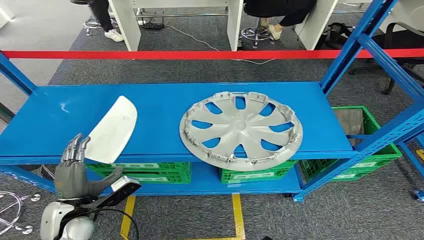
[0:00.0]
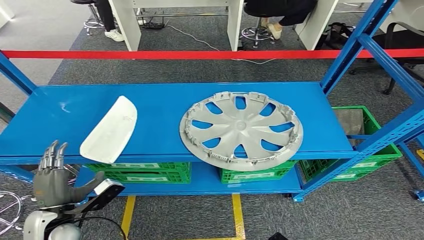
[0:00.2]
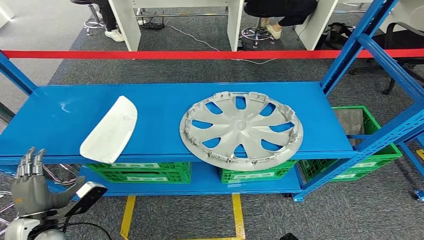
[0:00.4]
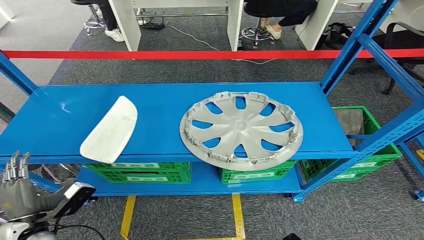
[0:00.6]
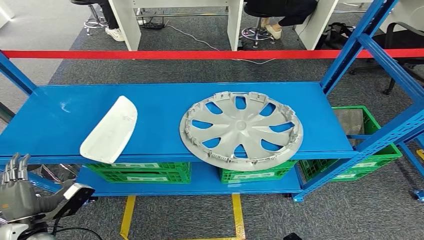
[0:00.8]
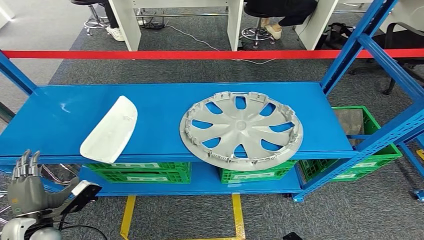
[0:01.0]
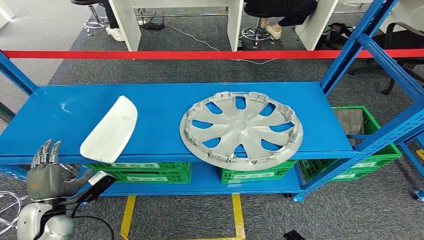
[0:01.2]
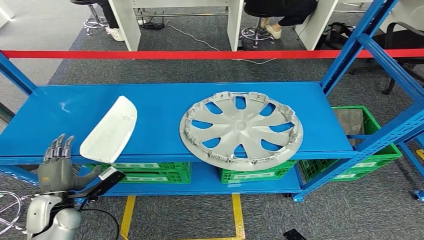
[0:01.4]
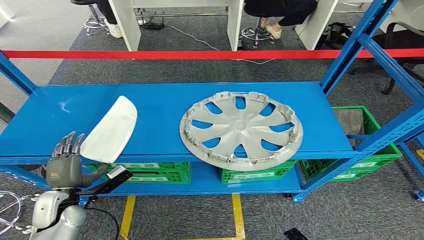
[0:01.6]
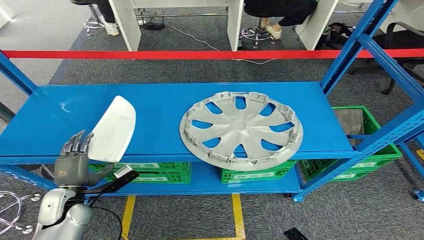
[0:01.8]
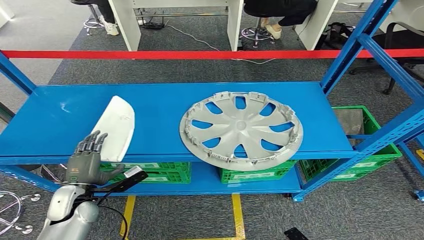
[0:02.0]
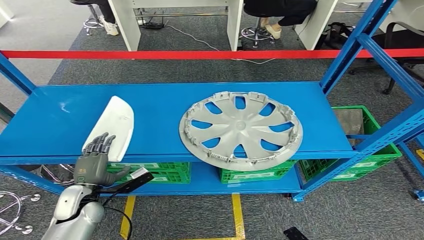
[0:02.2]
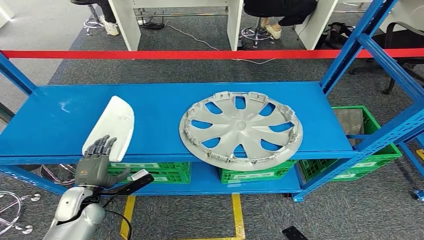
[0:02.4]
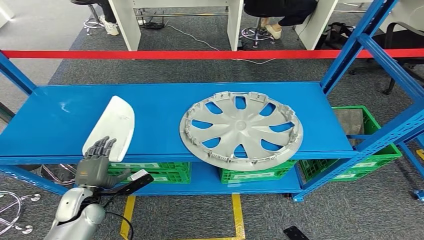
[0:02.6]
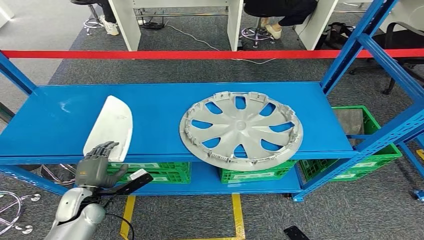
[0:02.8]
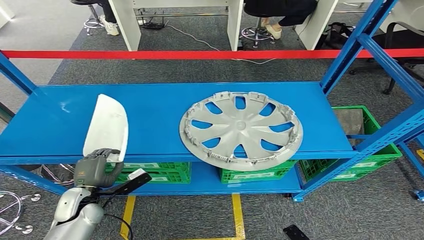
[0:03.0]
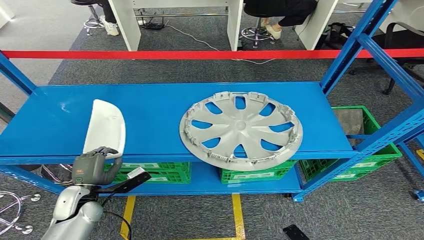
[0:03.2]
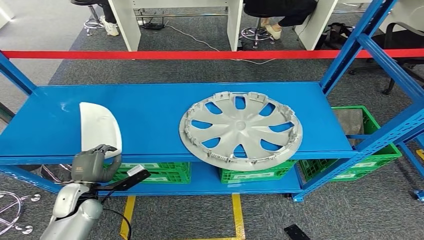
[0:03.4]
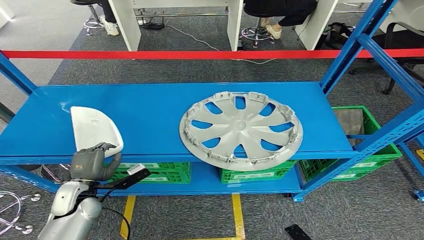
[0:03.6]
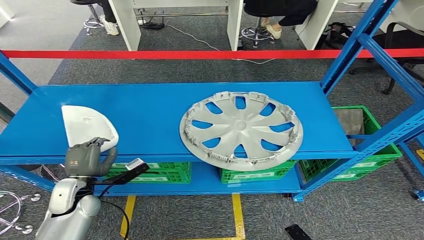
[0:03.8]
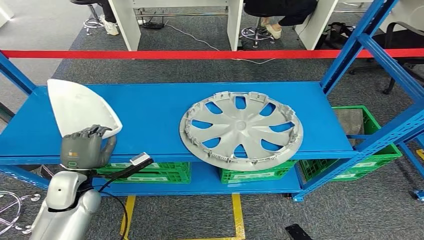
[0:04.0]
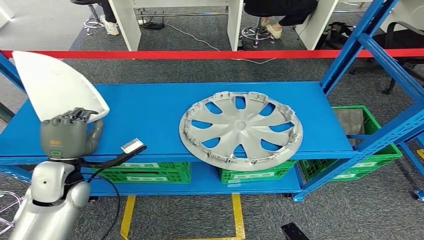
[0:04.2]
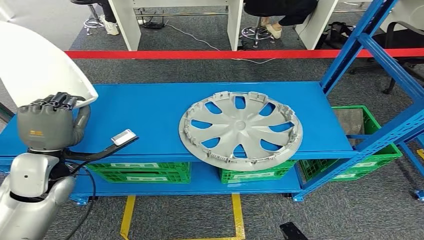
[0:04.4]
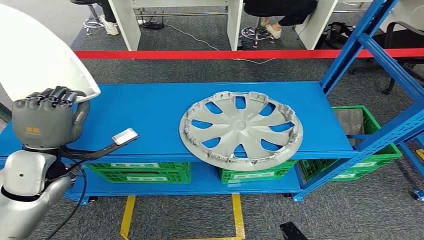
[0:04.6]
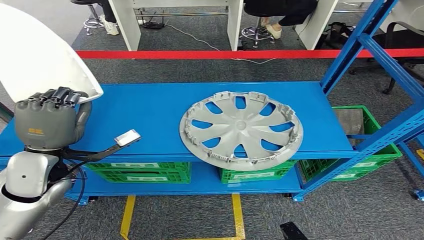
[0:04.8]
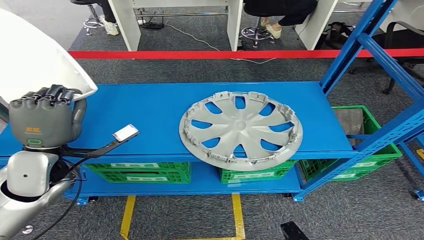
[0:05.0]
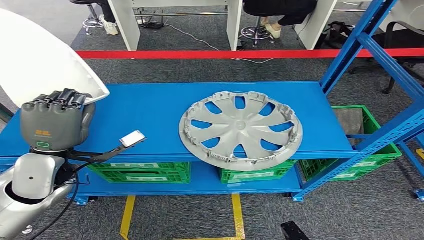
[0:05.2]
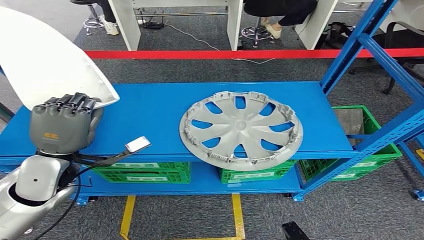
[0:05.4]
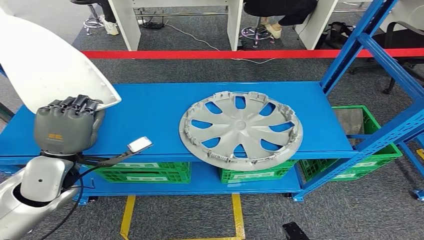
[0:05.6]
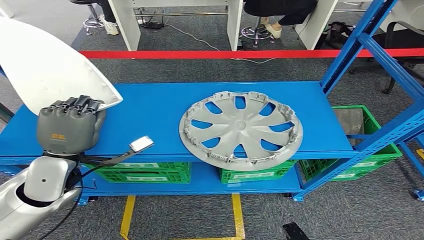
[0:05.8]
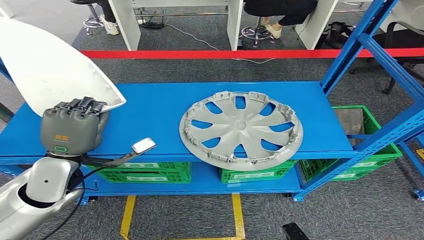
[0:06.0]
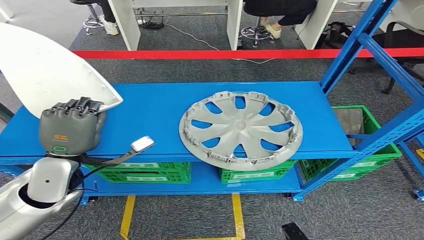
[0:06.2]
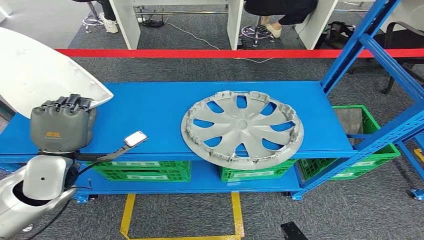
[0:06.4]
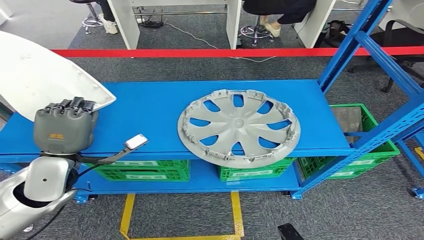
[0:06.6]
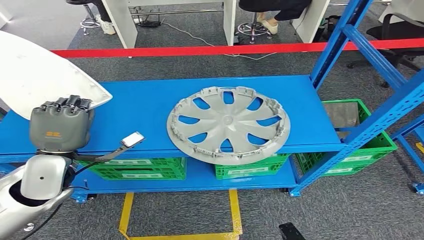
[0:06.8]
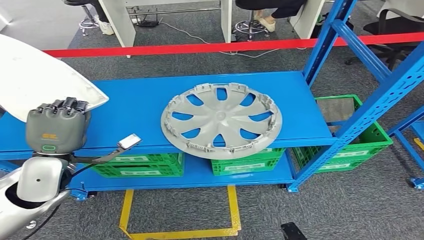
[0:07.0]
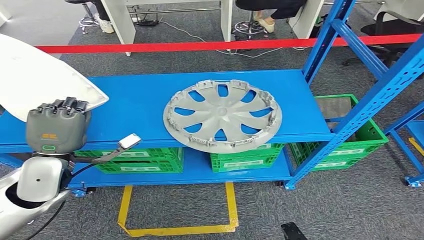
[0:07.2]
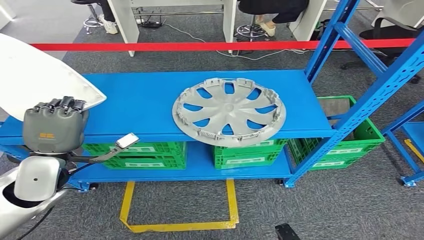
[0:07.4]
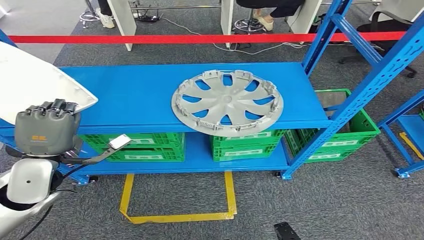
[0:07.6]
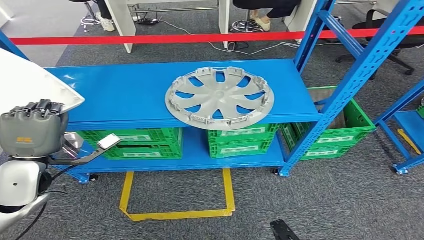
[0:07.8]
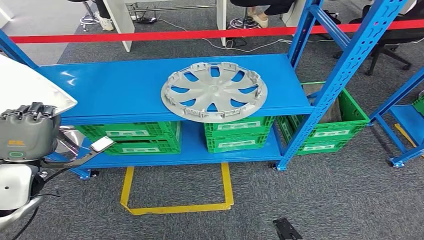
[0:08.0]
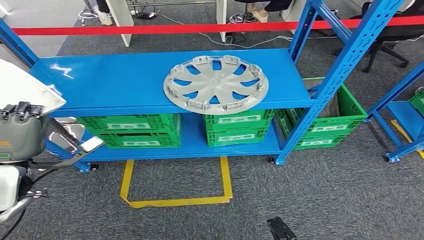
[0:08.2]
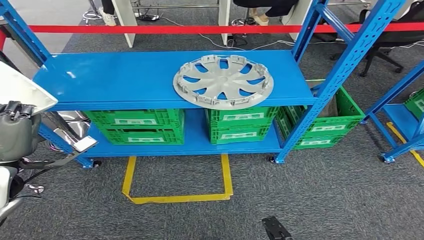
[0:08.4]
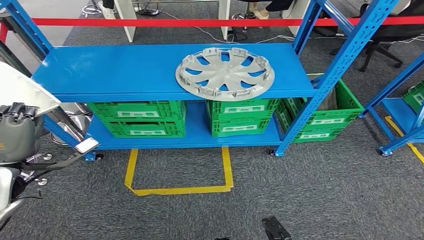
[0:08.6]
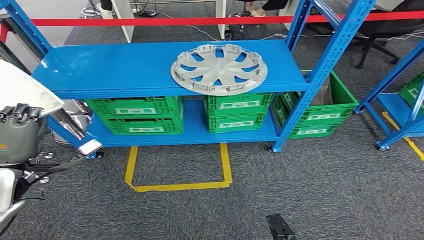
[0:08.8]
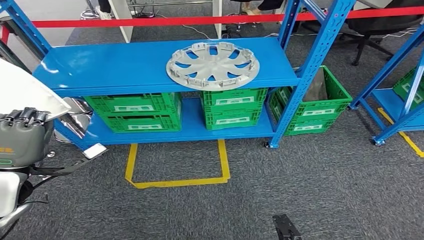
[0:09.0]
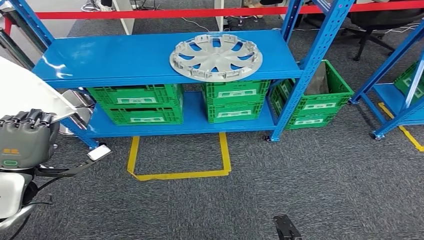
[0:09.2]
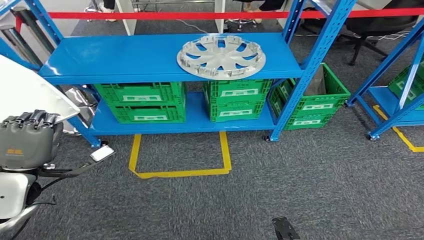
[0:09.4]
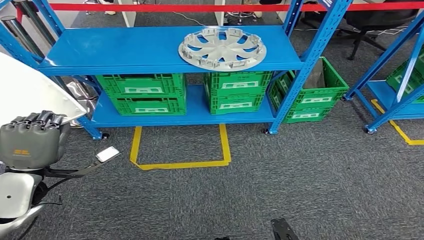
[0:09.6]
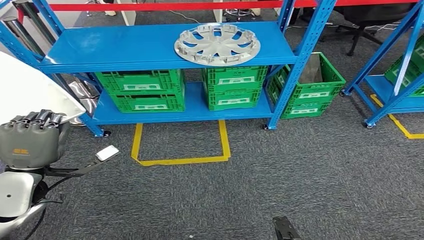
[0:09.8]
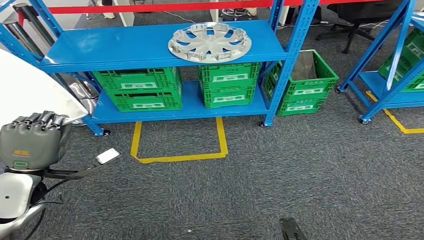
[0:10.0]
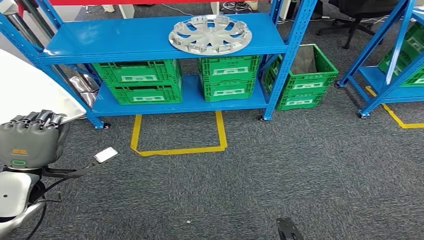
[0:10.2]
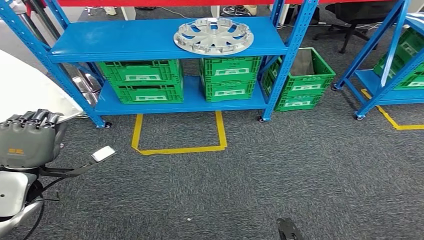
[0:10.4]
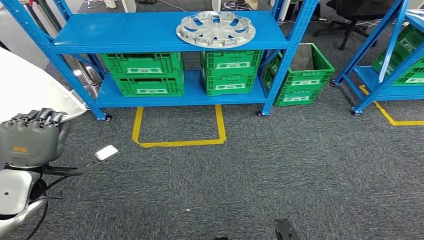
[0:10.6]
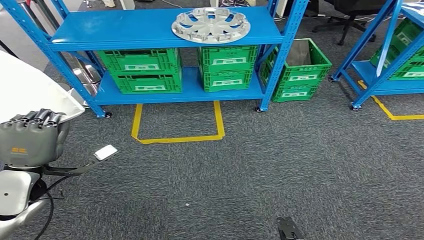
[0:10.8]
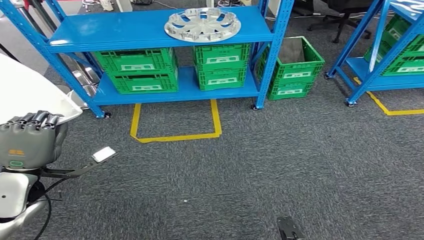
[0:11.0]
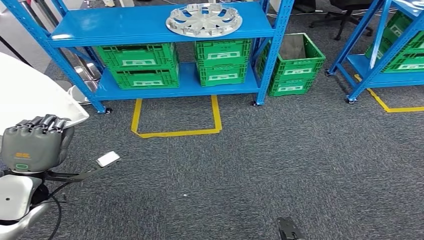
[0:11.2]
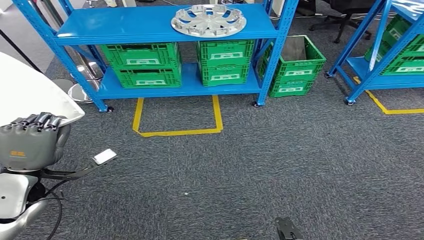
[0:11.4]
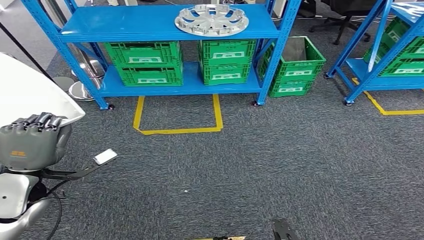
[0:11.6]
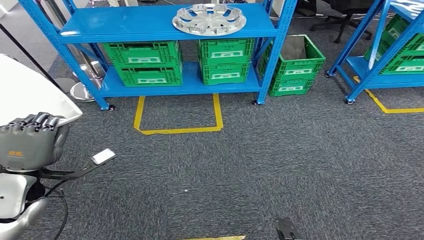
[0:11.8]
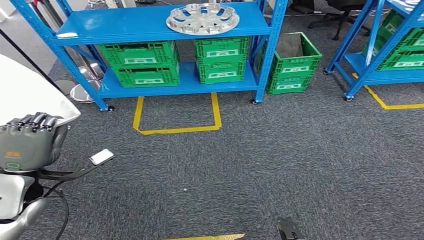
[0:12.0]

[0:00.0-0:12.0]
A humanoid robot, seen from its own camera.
Step, 0:00.0 to 0:06.6: Pick up the small component from the shelf.
0:01.6 to 0:03.0: The hands stay close to where they were, moving slightly.
0:03.0 to 0:04.4: The left hand travels upward by approximately 20 cm.
0:04.4 to 0:06.0: There are only small adjustments of the hands.

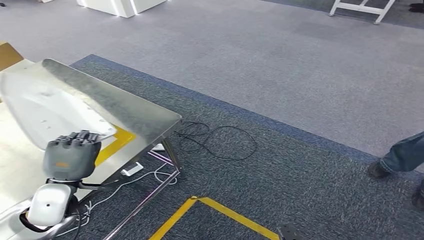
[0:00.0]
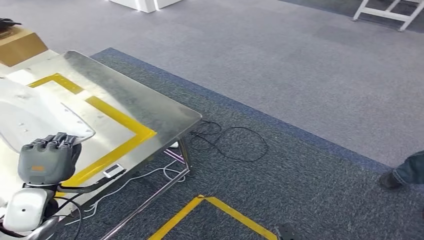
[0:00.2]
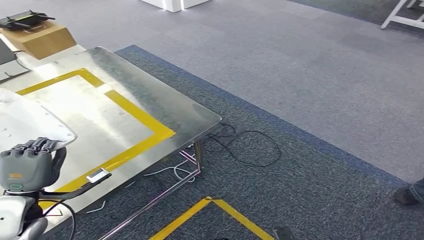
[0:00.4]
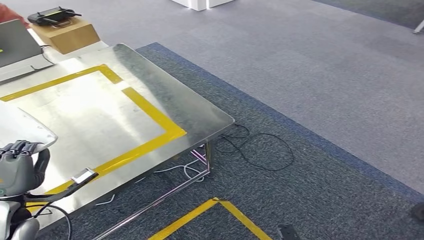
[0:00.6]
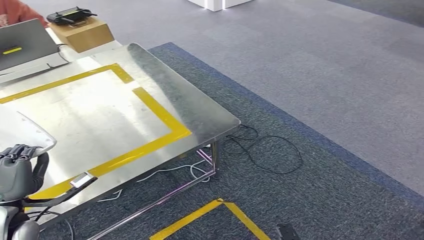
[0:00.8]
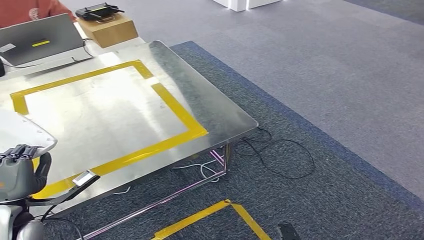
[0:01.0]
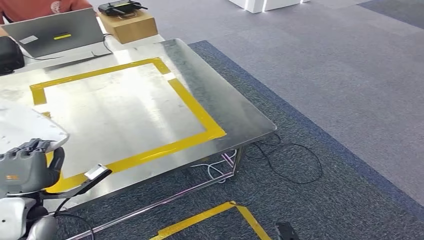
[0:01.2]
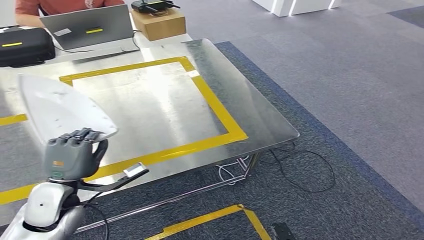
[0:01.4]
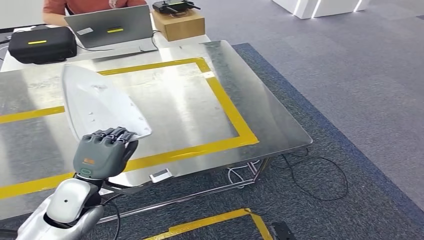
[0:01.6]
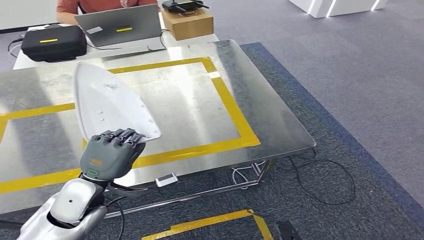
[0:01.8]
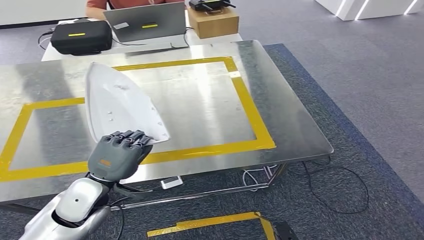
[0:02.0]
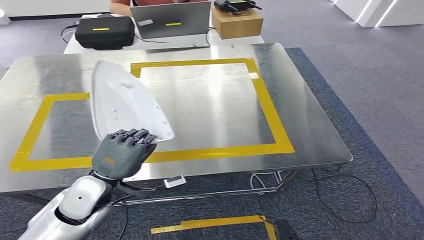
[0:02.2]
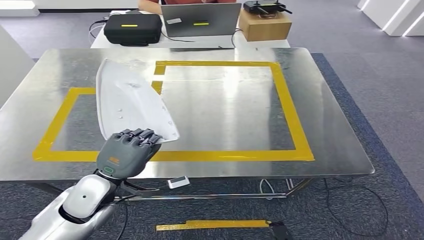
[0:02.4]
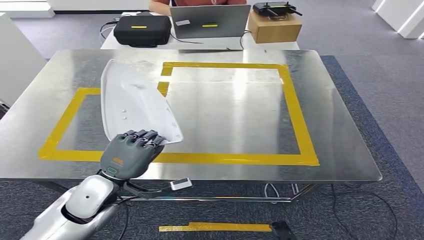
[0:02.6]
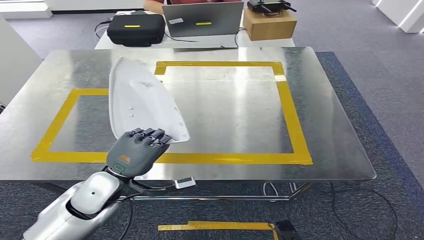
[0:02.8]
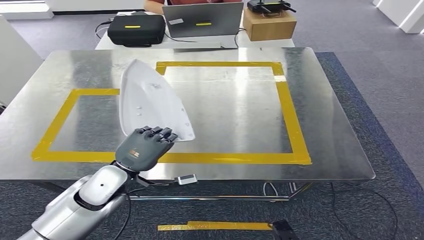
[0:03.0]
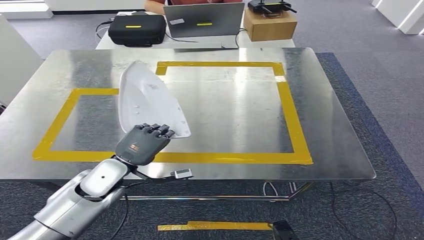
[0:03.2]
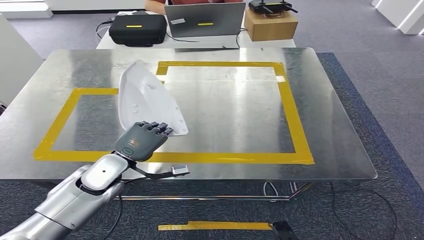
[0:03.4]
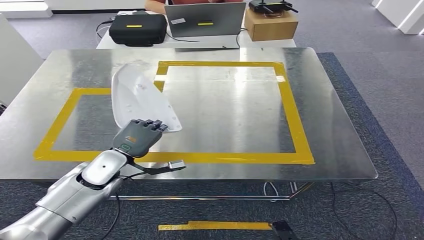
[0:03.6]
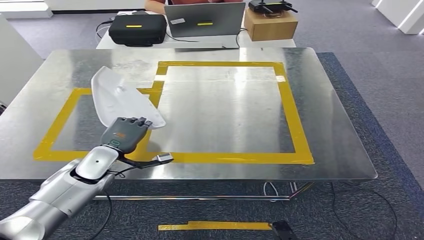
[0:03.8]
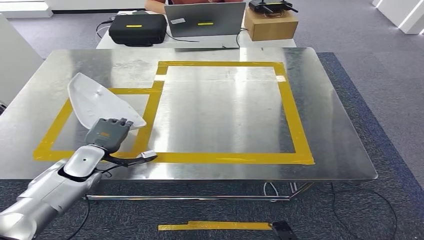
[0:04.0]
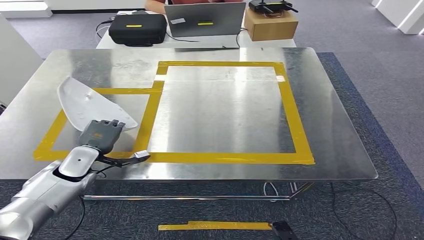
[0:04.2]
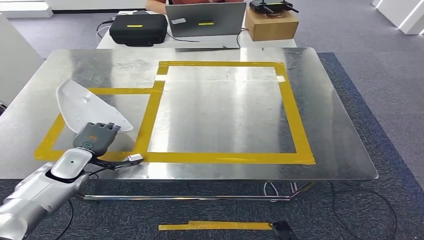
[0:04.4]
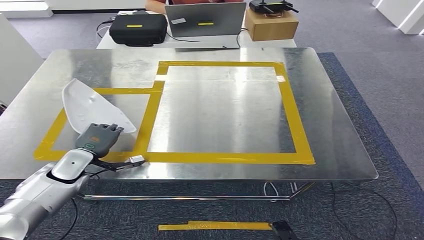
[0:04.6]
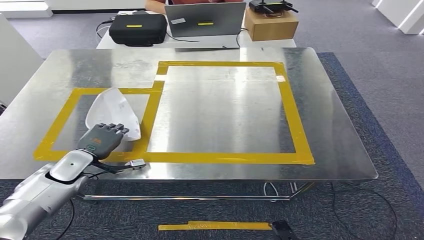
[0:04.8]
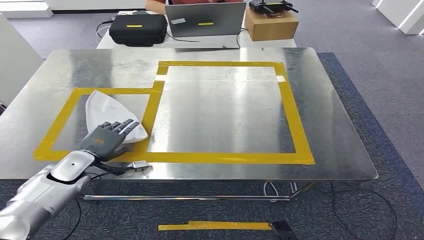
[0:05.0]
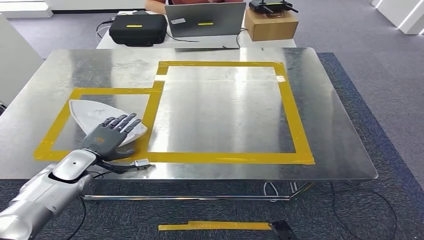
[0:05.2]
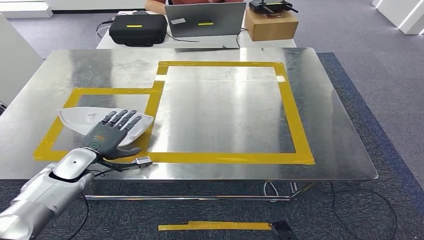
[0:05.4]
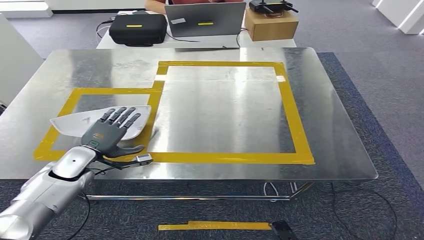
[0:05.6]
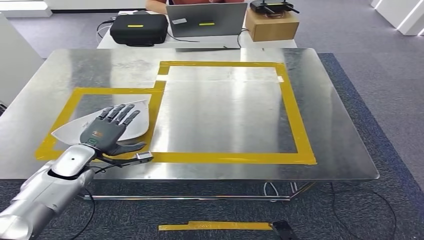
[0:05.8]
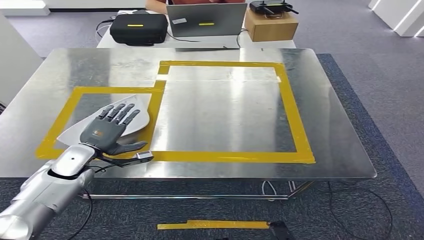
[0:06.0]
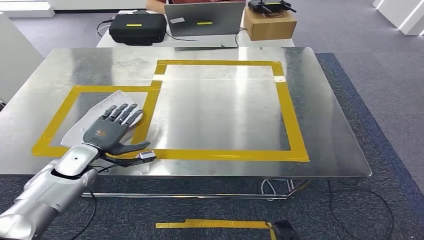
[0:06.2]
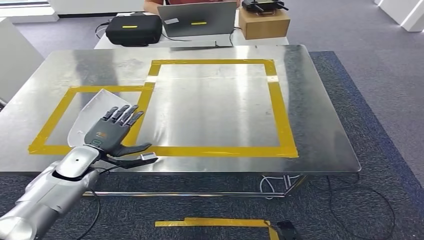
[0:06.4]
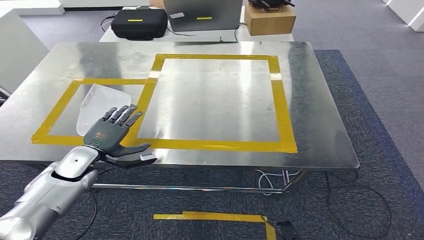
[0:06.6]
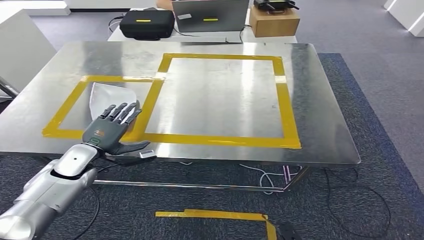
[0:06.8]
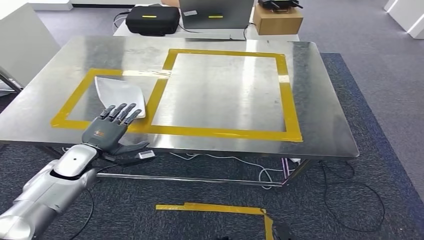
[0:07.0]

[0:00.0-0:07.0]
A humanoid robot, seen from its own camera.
Step, 0:01.4 to 0:06.2: Insert the small component into the corresponding slot on the workbench.
0:02.8 to 0:04.2: The left hand is displaced forward, to the left and downward by approximately 15 cm.
0:04.2 to 0:05.6: The hands move only a little.
